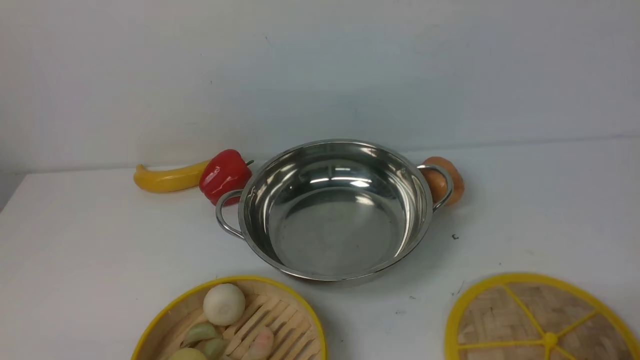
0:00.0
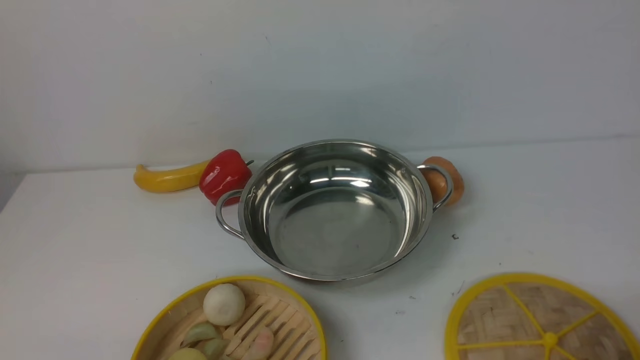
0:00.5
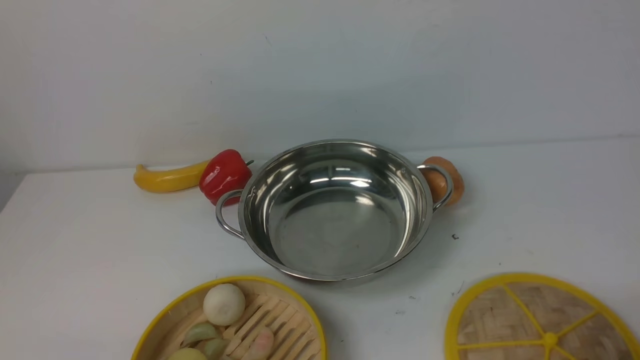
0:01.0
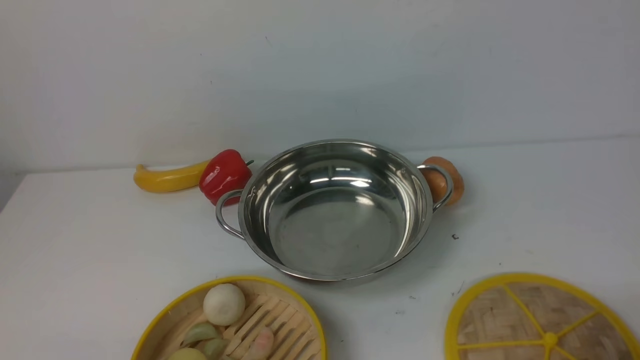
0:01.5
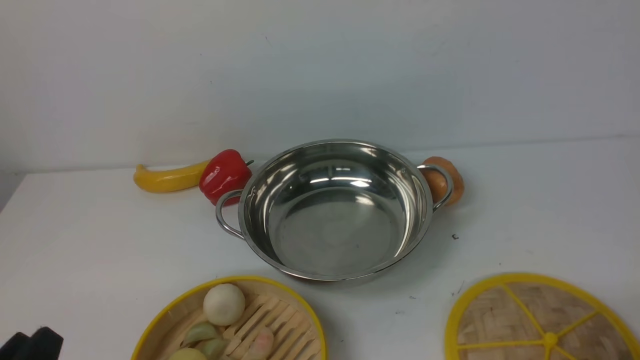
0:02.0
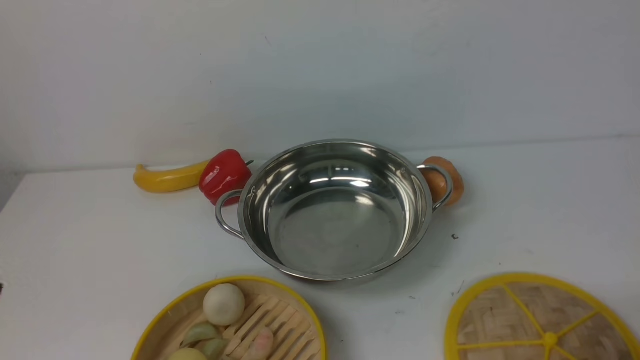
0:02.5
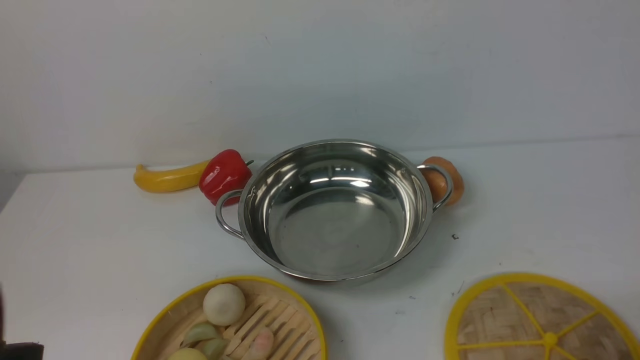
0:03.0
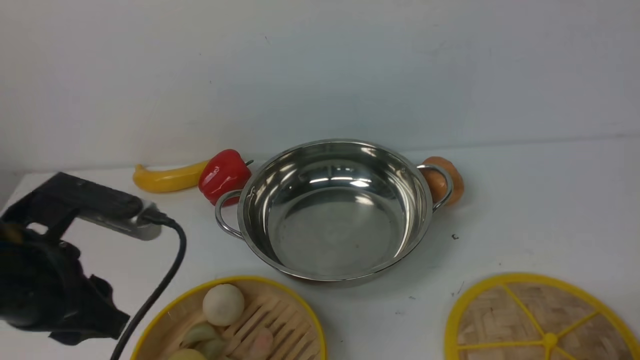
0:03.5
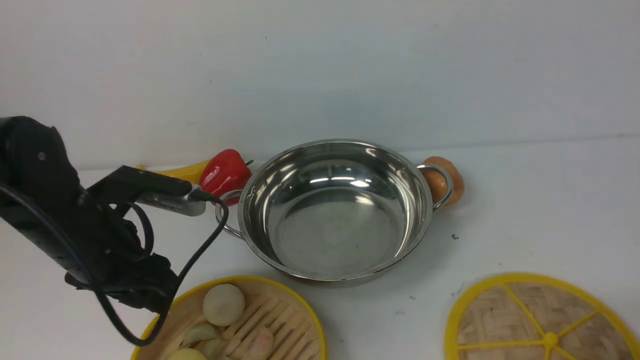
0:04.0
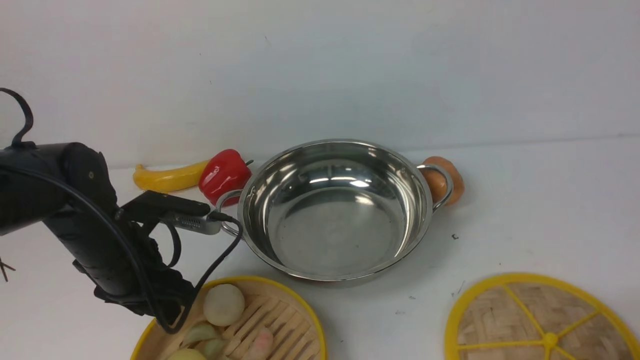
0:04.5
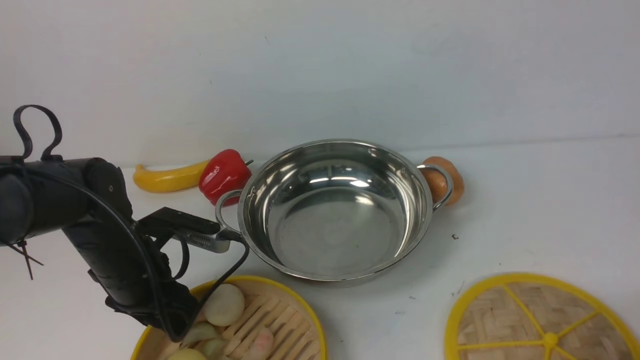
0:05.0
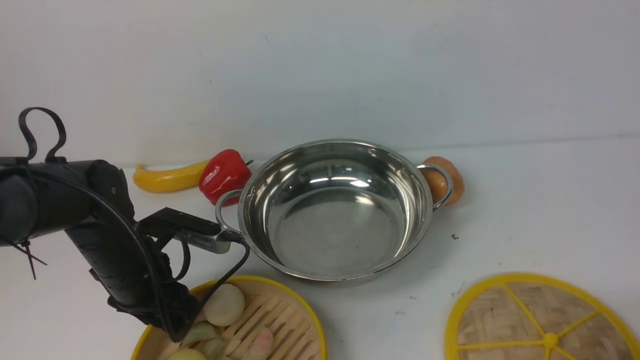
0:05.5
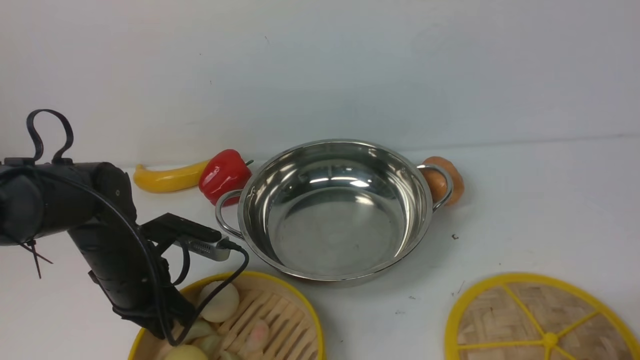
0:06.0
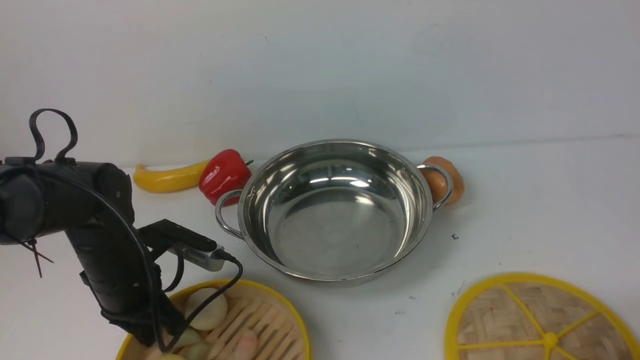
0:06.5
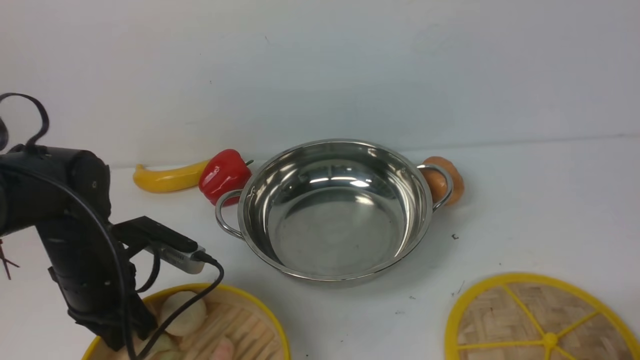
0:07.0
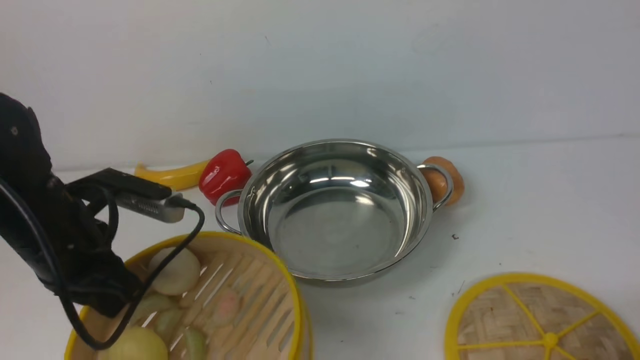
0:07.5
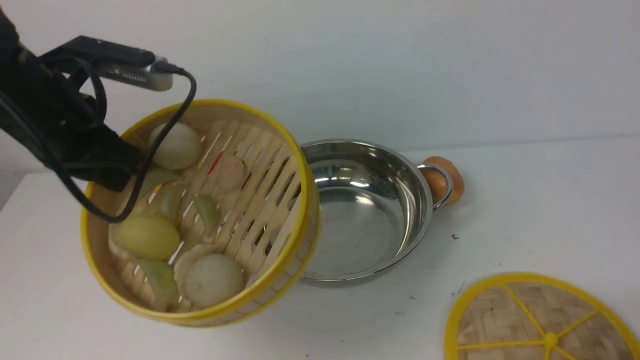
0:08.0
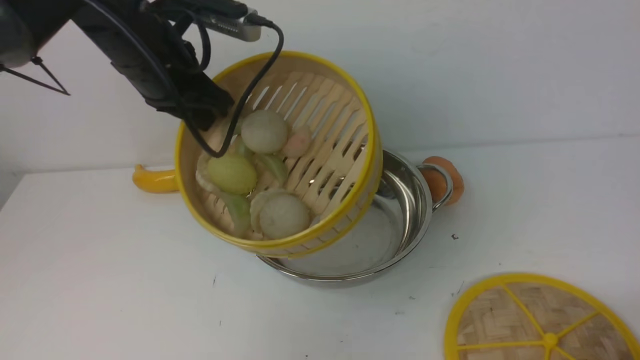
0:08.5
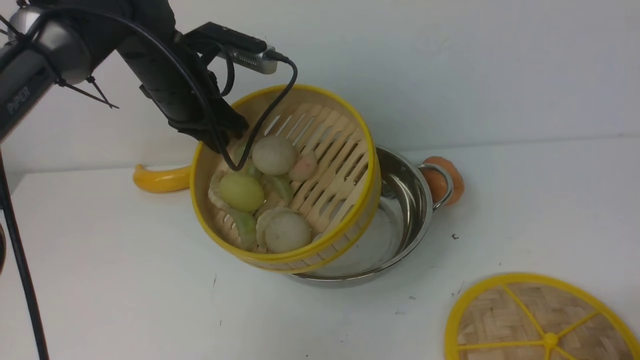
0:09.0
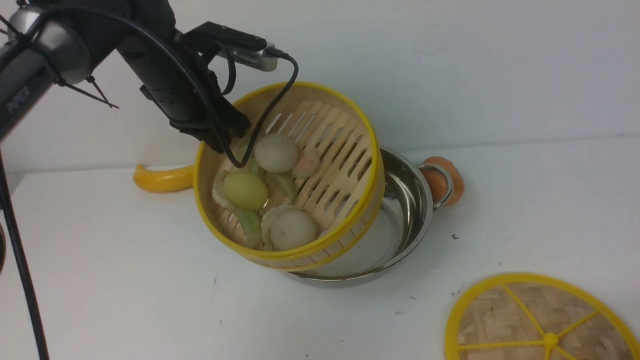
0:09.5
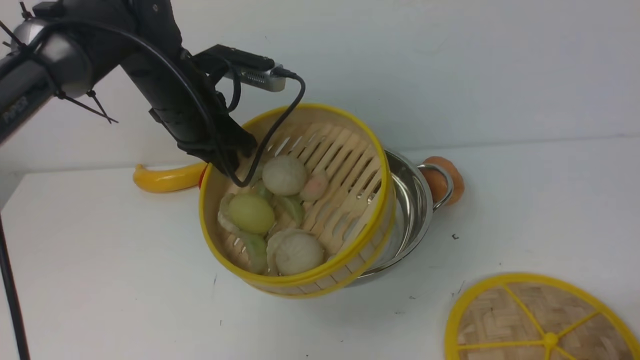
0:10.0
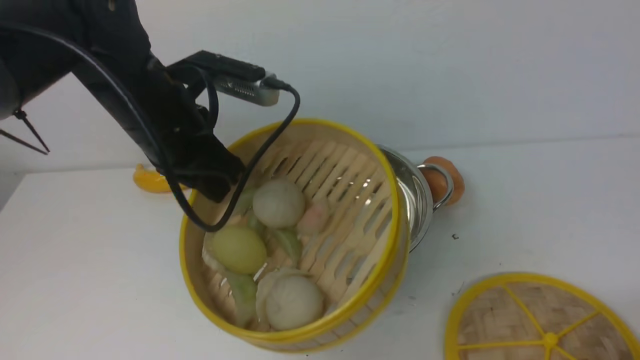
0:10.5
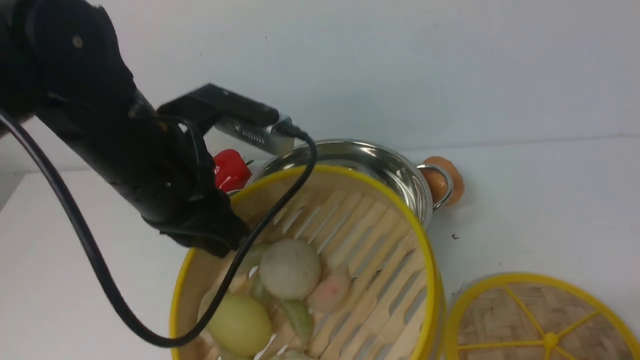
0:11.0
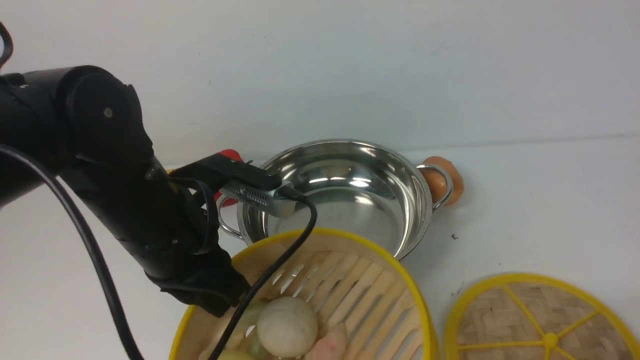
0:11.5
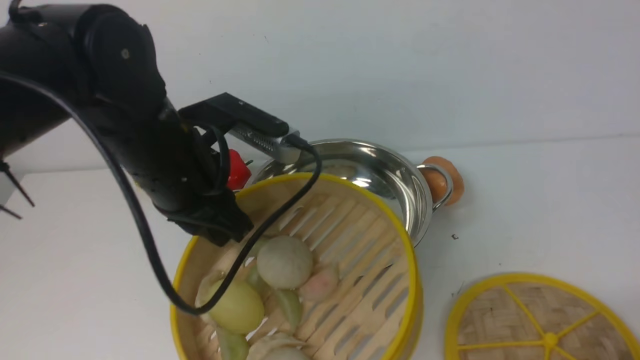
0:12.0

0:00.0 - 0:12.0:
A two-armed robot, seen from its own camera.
Task of the whole recording: place the steamer in the pot on the white table, and put the lid on the steamer.
Step, 0:00.0 - 0:07.0: use the left arm to lift the steamer closest to it.
0:02.0 - 0:04.0: The left gripper shifts approximately 20 cm forward.
0:04.0 - 0:06.0: The left gripper shifts about 10 cm downward, and closes its fingers.
0:06.0 - 0:08.0: The left gripper heads upward, covering about 20 cm.
0:08.0 - 0:10.0: The left gripper travels forward and to the right by about 10 cm.
0:10.0 - 0:12.0: The left gripper is displaced backward by roughly 10 cm.

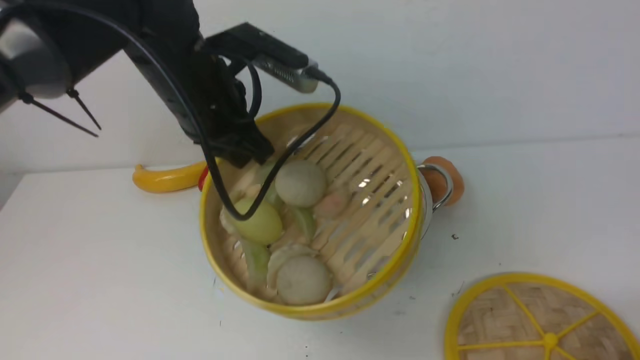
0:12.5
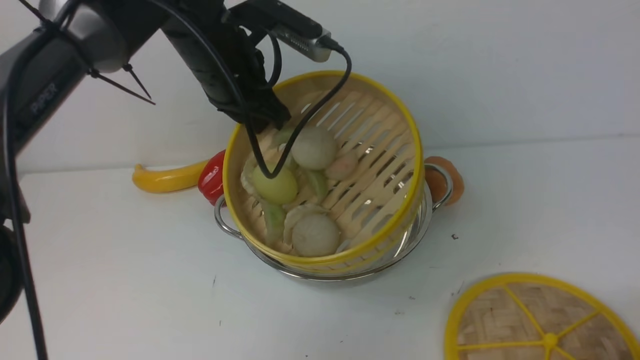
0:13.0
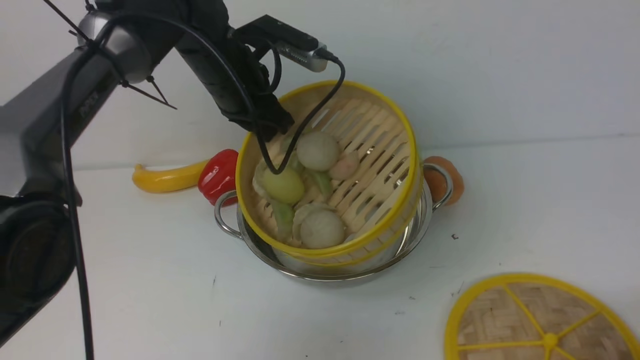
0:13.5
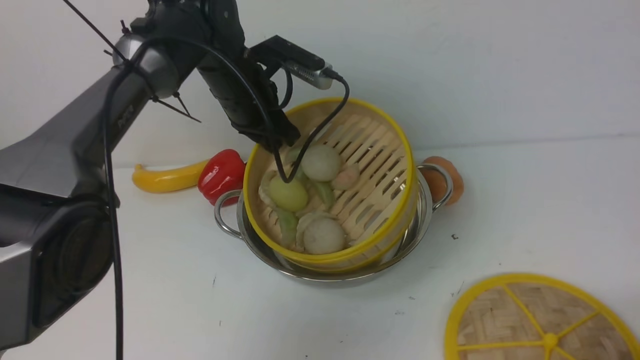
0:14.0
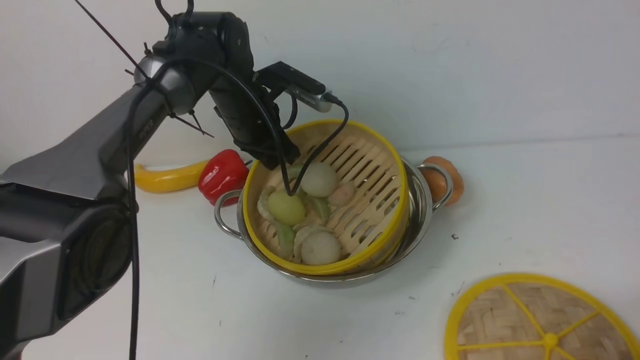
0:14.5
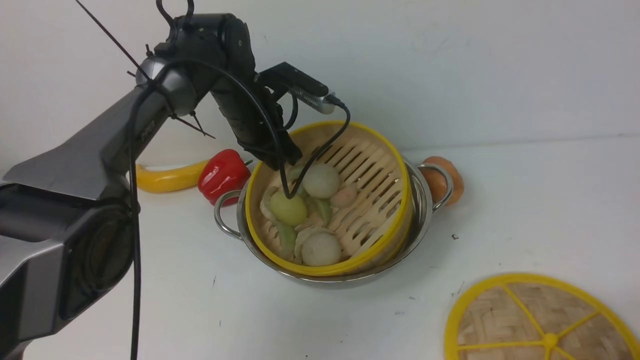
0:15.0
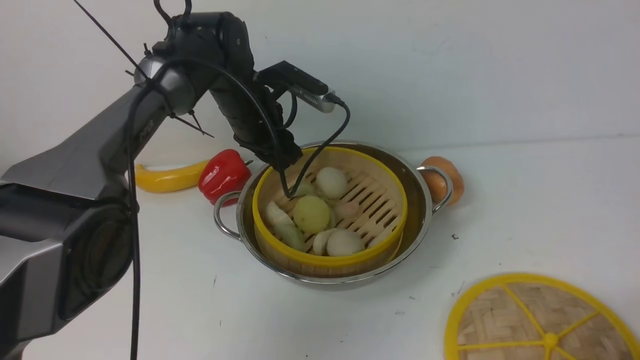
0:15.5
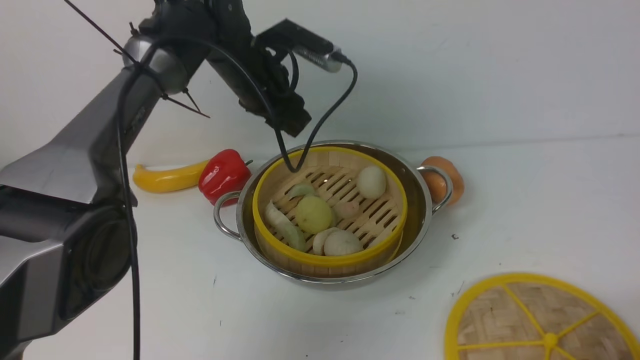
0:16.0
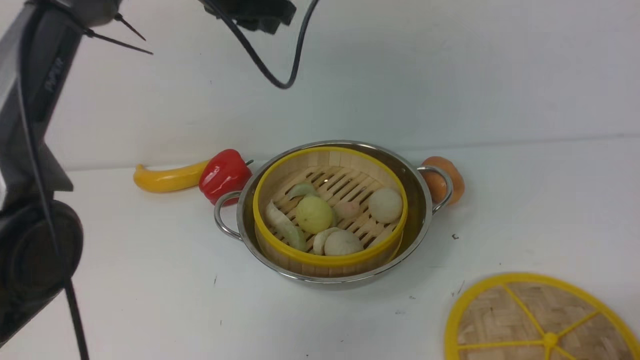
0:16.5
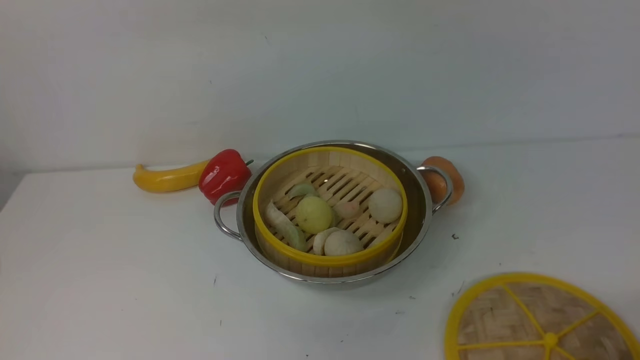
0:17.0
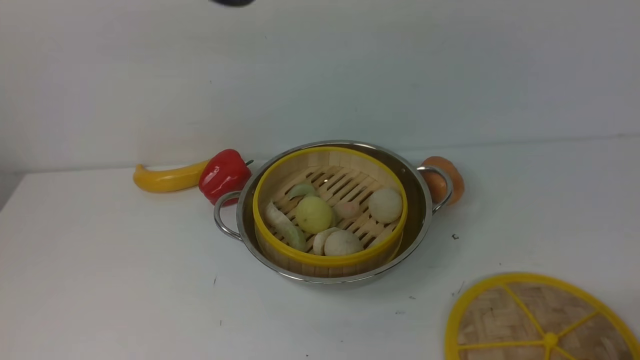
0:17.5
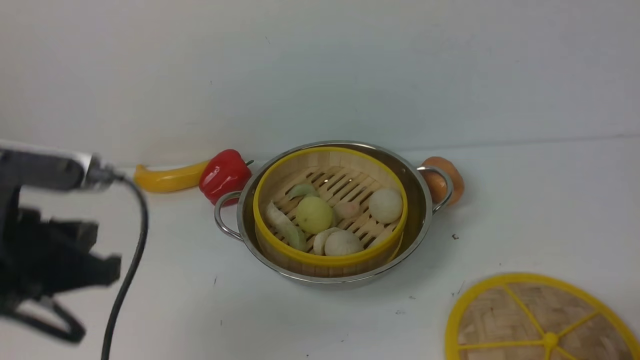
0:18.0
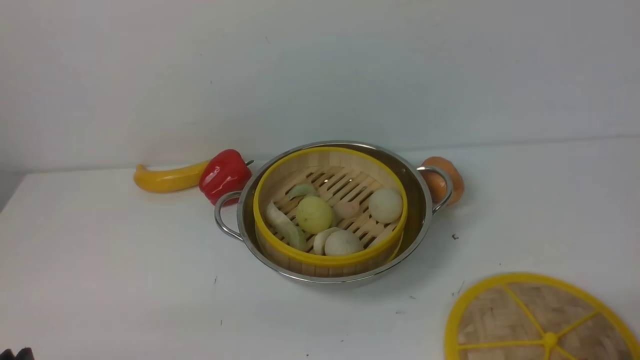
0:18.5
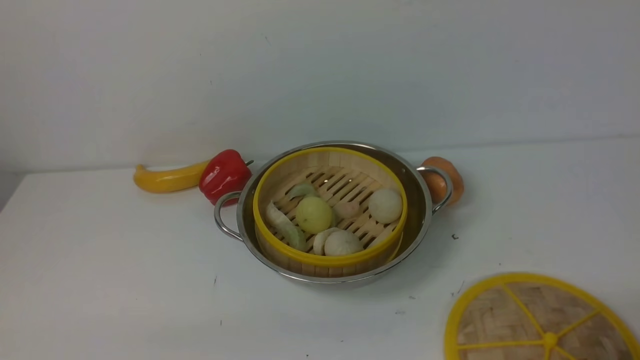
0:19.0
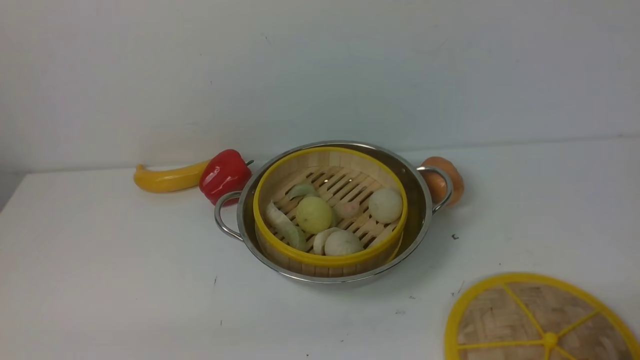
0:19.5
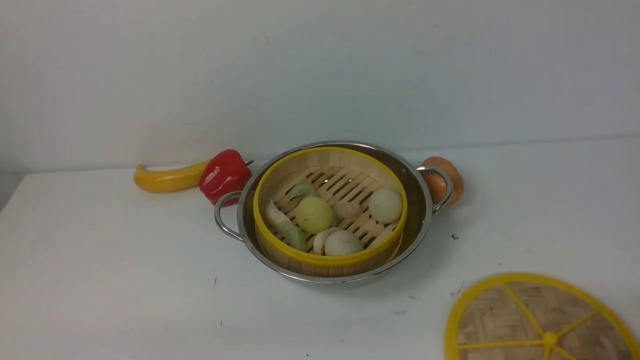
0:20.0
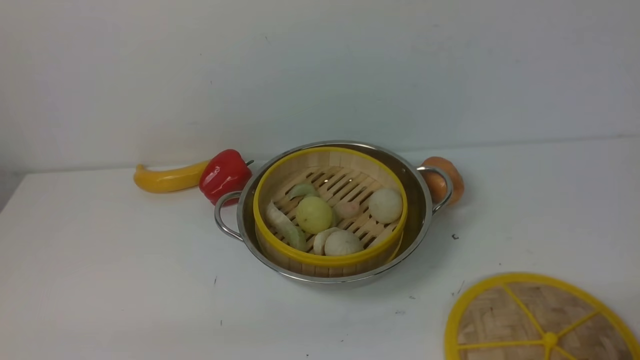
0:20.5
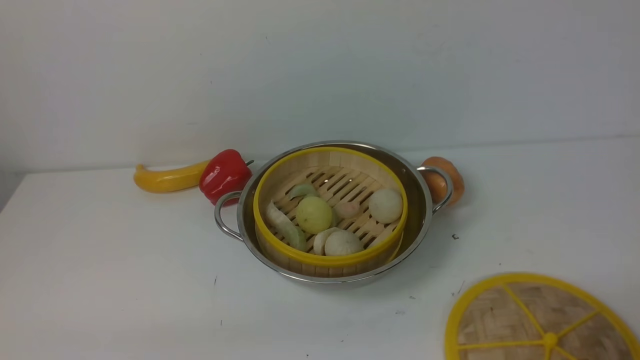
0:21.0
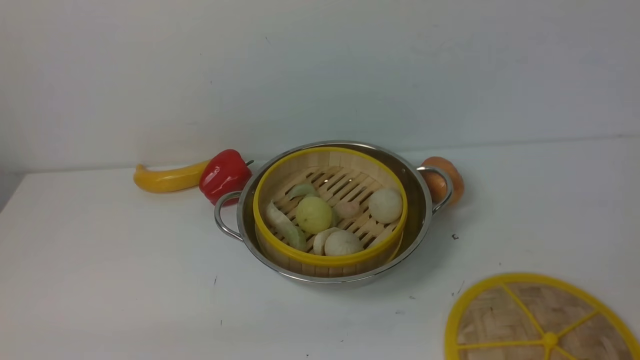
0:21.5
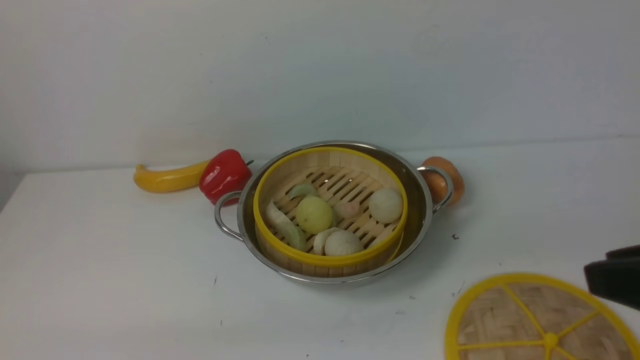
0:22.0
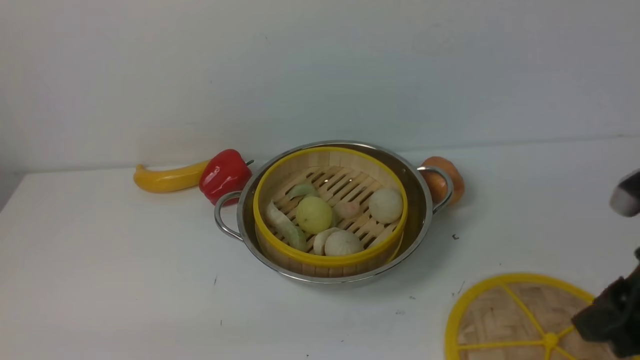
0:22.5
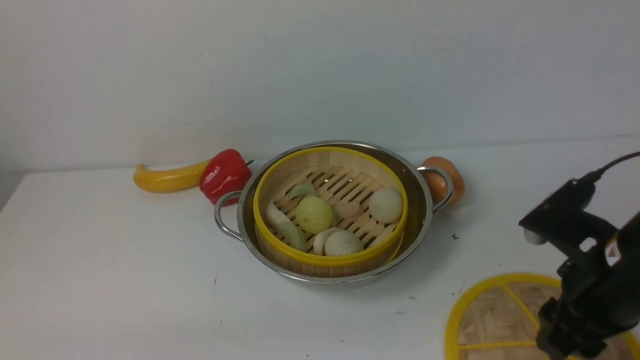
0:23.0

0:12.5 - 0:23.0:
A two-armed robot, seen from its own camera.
Task of the whole recording: place the steamer in the pot on the white table, and put the lid on the steamer.
Step, 0:12.5 - 0:16.0: use the left arm to put the steamer into the iron steamer pot in the middle.
0:12.5 - 0:14.5: The left gripper moves forward and downward, some 15 cm.
0:14.5 - 0:16.5: The left gripper is displaced upward by about 20 cm, and opens up.
0:16.5 - 0:19.0: The left gripper goes approximately 50 cm backward and downward.
0:21.0 - 0:23.0: The right gripper heads forward and to the left, covering some 20 cm, and opens its fingers.
